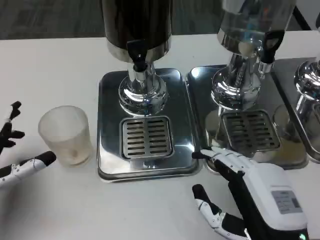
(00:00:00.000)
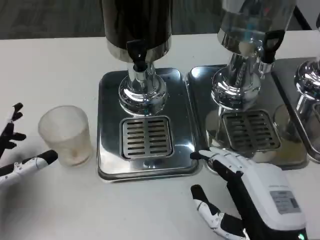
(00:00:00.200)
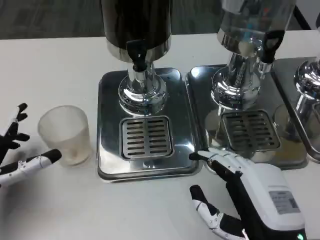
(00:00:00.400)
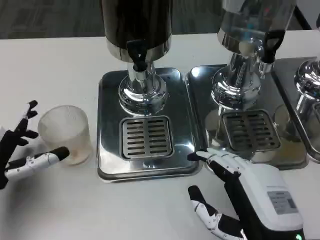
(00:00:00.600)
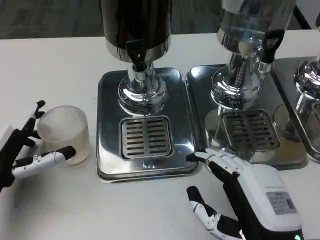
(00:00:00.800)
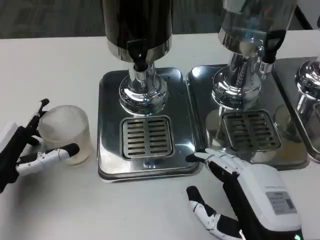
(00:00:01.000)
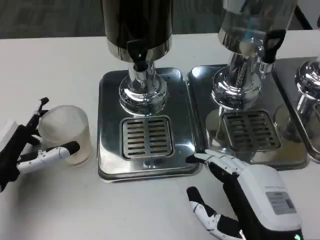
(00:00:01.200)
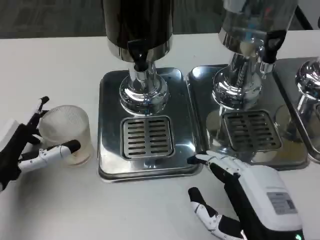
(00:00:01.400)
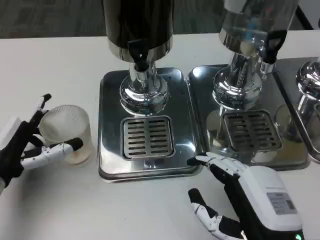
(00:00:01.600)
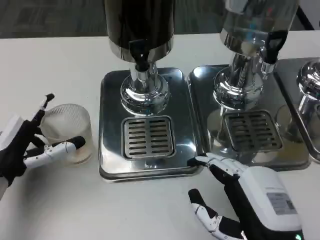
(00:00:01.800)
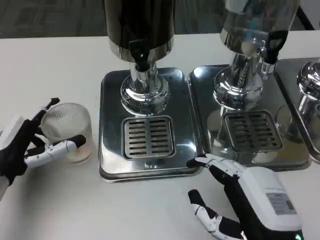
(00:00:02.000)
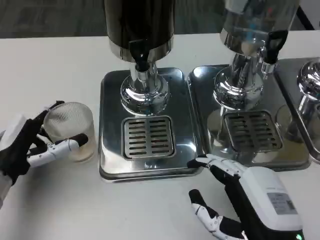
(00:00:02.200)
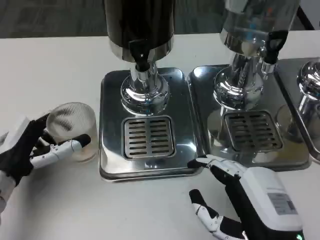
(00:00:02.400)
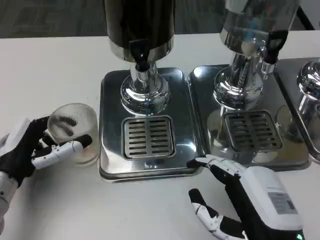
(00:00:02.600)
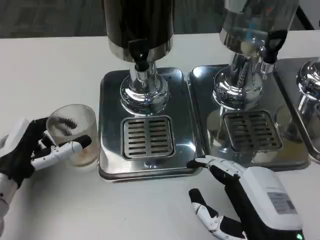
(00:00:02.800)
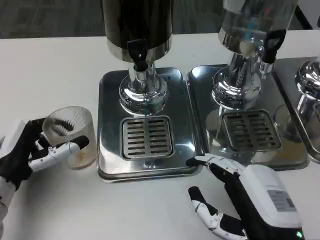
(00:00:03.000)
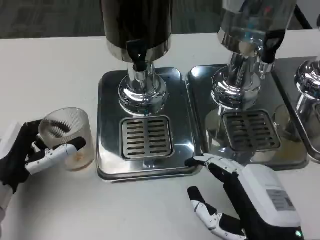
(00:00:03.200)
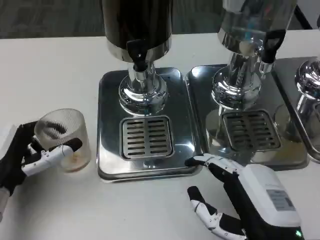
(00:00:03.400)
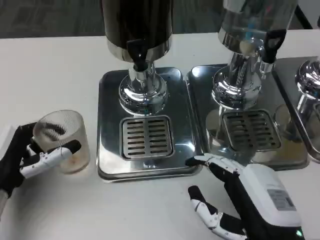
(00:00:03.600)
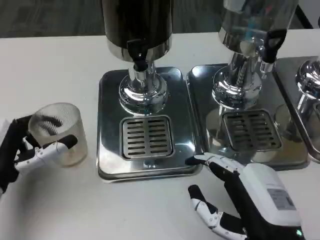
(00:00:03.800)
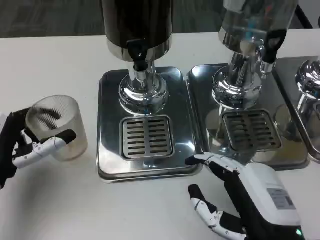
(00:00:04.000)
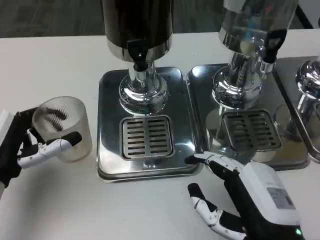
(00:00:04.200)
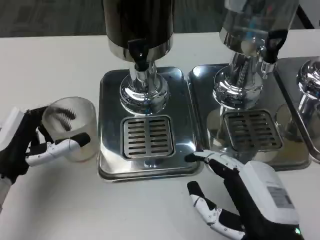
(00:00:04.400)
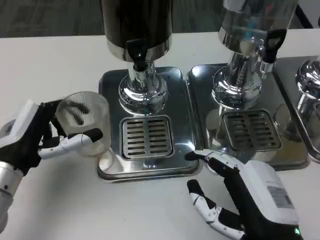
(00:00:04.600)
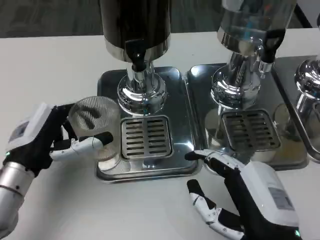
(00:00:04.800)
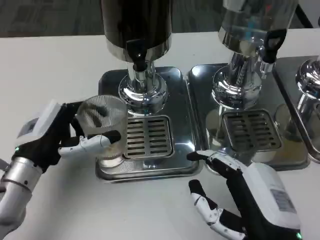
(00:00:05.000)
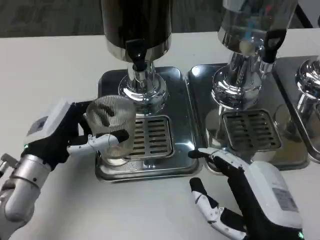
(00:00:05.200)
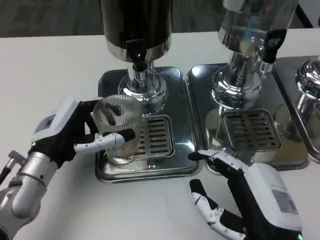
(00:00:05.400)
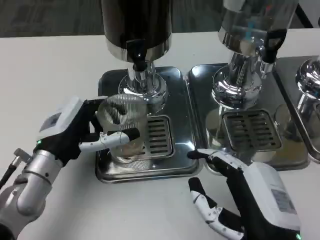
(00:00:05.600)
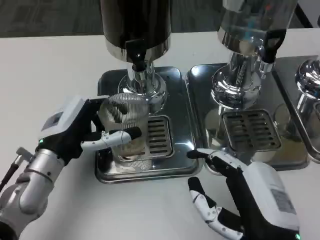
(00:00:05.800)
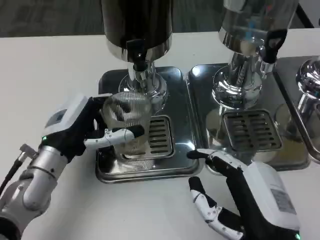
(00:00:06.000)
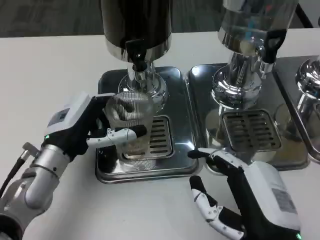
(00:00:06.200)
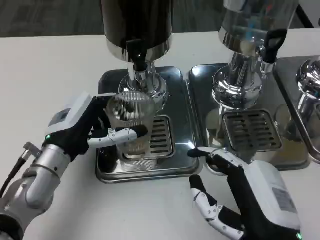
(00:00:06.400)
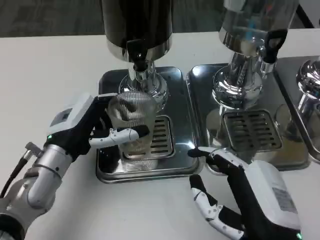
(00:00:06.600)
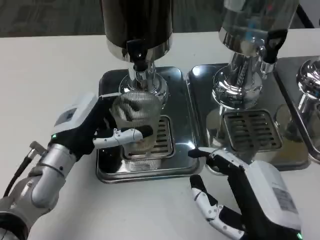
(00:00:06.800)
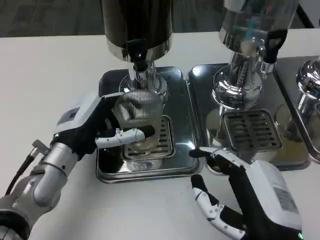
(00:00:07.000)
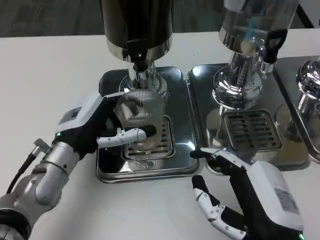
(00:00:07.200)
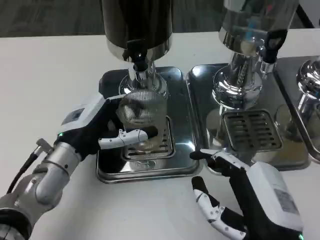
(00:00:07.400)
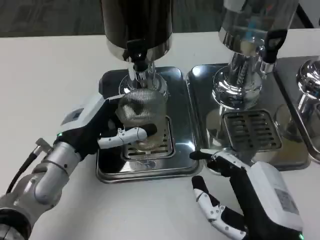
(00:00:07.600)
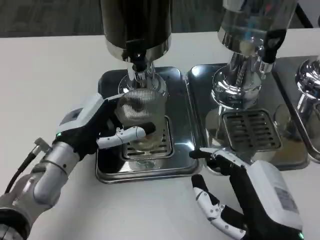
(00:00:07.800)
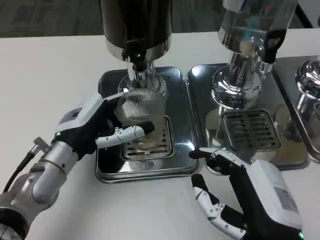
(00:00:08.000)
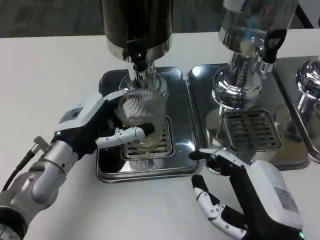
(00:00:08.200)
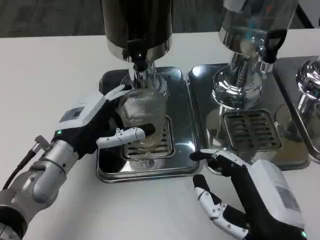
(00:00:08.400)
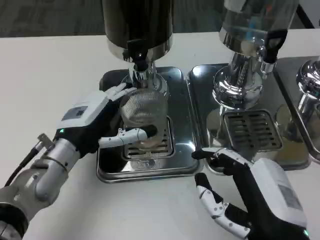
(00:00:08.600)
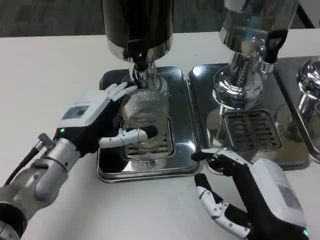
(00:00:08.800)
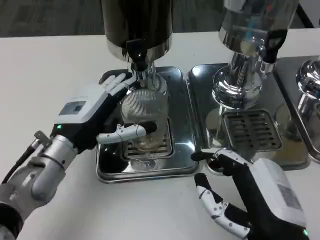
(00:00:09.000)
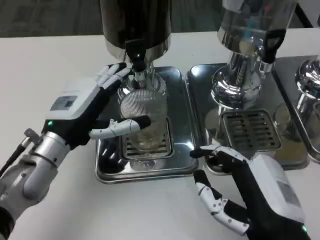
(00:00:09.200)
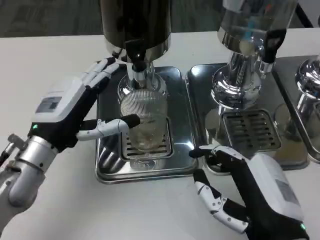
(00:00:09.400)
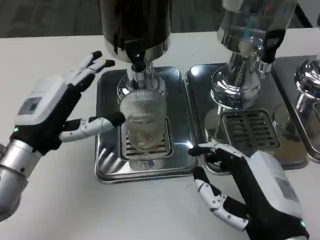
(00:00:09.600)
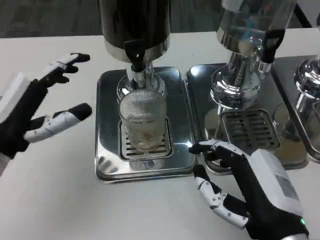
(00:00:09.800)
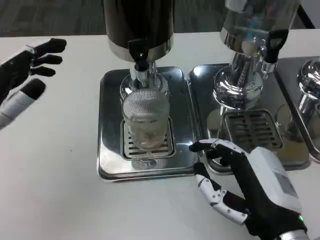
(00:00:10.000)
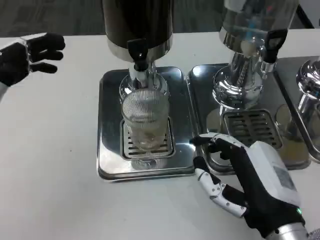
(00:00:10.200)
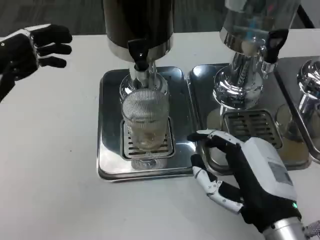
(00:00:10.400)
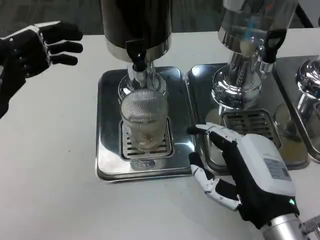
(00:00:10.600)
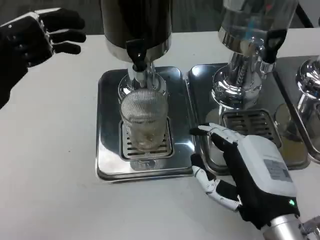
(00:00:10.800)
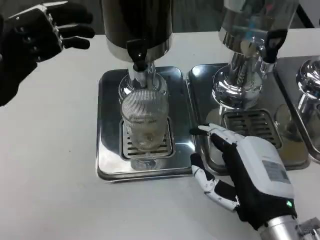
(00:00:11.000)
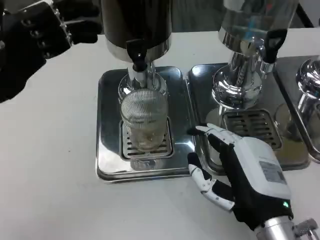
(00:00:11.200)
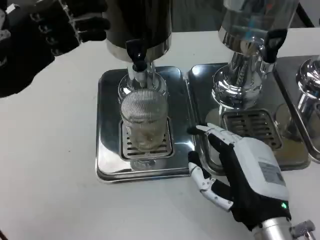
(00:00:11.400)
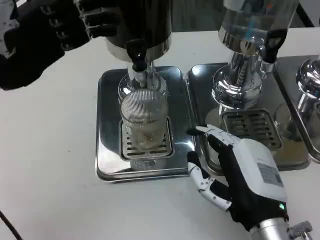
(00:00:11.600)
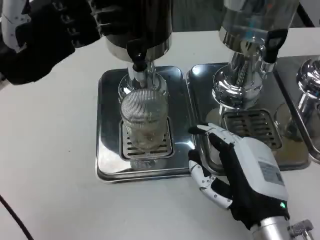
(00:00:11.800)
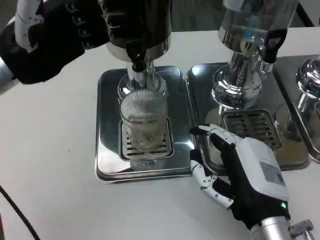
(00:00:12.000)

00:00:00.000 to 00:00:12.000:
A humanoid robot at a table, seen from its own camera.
Task of the whole recording: Grasp the cup under the faucet to collect the drink, then remove the cup.
00:00:00.000 to 00:00:01.600: The left hand shifts by some 5 cm.
00:00:01.600 to 00:00:04.400: The hands move only a little.
00:00:04.400 to 00:00:06.000: The left hand travels to the right by about 5 cm.
00:00:06.000 to 00:00:09.000: The hands move only a little.
00:00:09.000 to 00:00:10.400: The left hand is displaced to the left and upward by approximately 15 cm.
00:00:10.400 to 00:00:12.000: The left hand shifts roughly 10 cm forward.

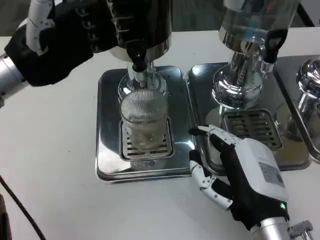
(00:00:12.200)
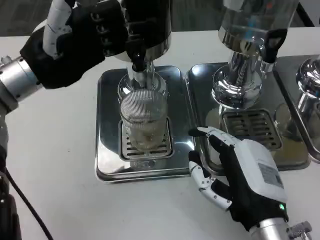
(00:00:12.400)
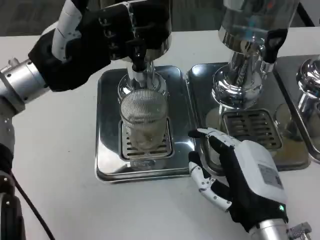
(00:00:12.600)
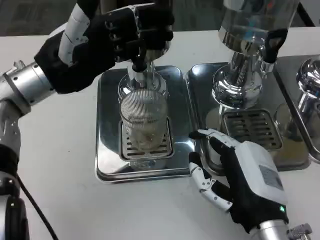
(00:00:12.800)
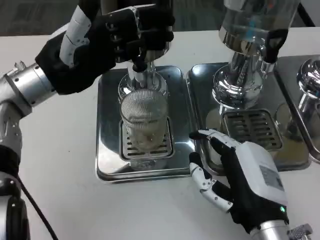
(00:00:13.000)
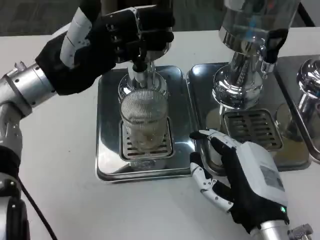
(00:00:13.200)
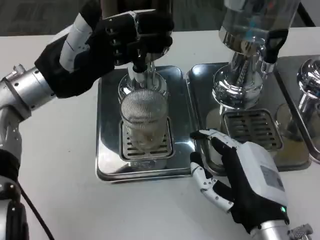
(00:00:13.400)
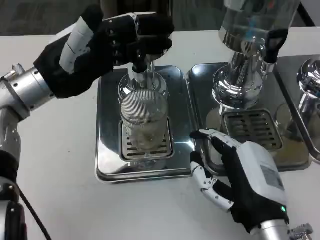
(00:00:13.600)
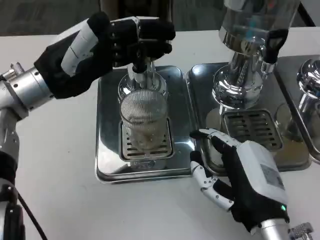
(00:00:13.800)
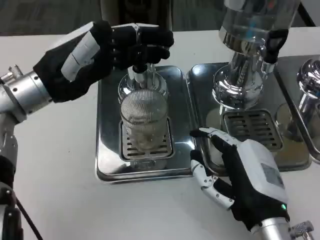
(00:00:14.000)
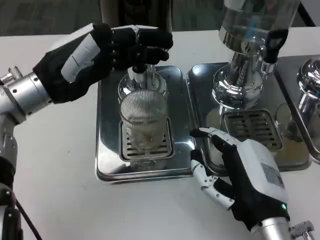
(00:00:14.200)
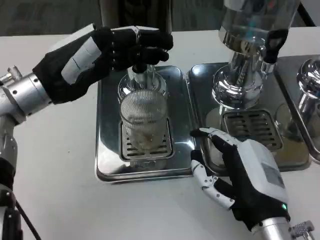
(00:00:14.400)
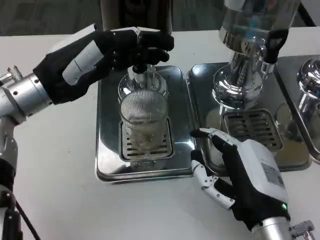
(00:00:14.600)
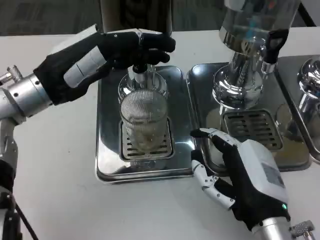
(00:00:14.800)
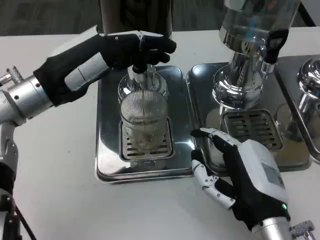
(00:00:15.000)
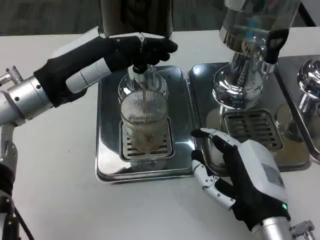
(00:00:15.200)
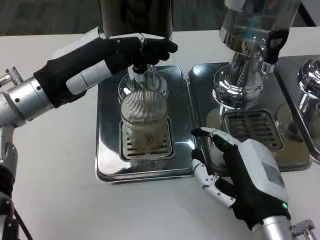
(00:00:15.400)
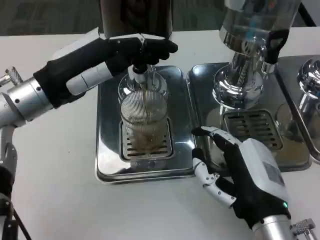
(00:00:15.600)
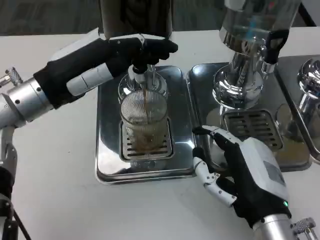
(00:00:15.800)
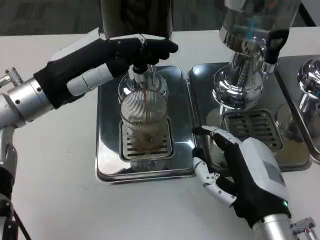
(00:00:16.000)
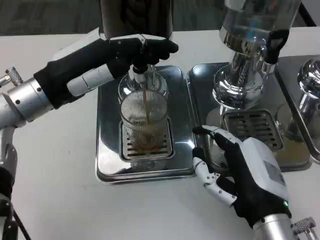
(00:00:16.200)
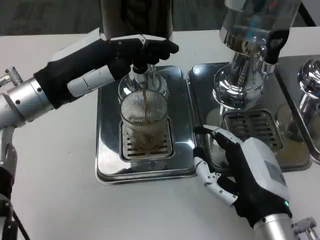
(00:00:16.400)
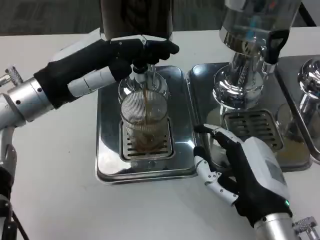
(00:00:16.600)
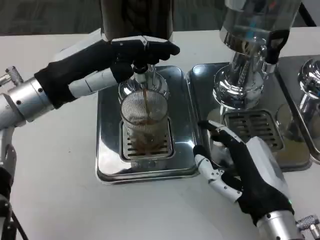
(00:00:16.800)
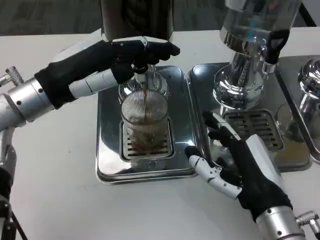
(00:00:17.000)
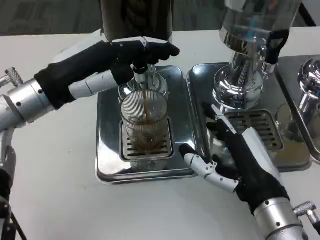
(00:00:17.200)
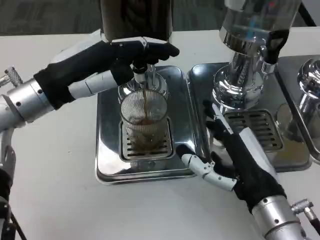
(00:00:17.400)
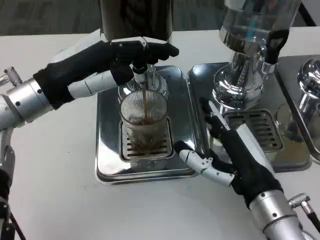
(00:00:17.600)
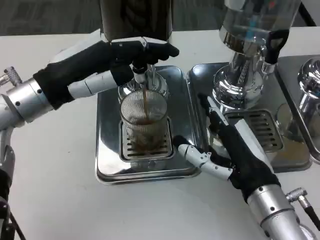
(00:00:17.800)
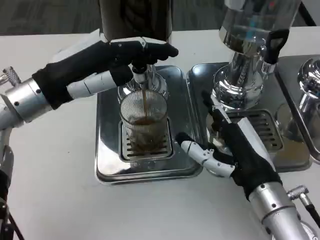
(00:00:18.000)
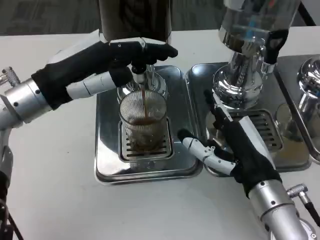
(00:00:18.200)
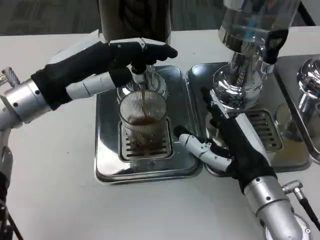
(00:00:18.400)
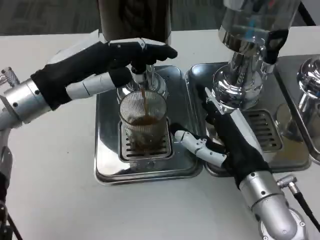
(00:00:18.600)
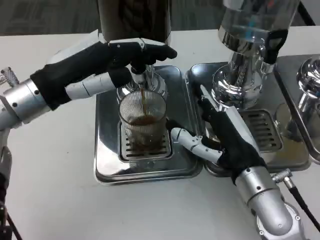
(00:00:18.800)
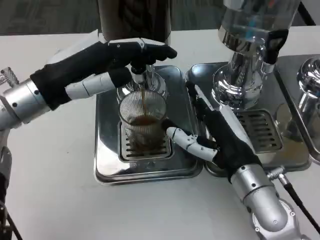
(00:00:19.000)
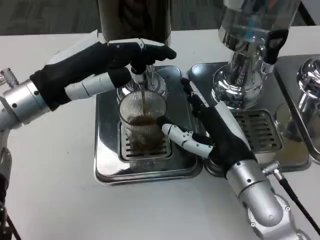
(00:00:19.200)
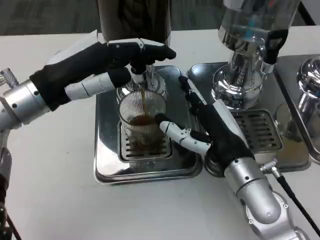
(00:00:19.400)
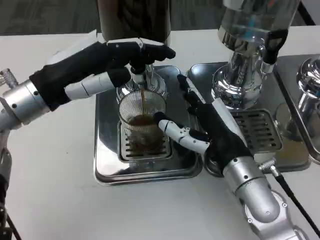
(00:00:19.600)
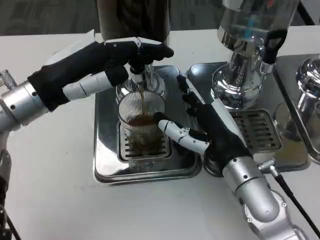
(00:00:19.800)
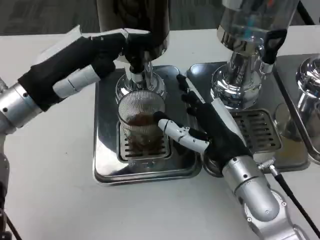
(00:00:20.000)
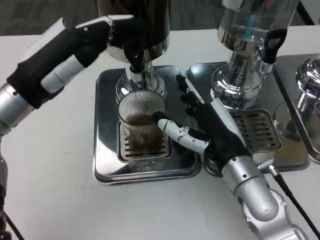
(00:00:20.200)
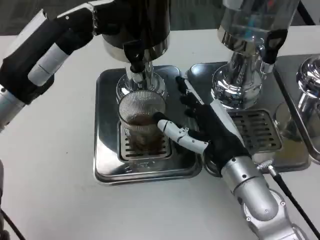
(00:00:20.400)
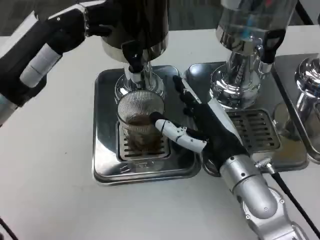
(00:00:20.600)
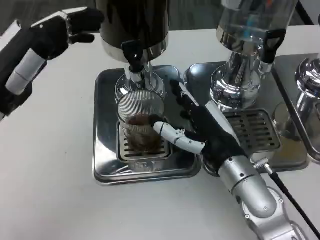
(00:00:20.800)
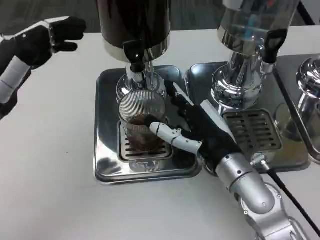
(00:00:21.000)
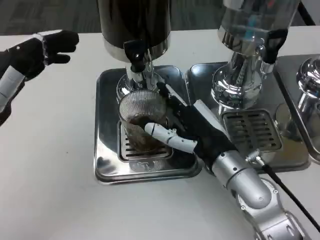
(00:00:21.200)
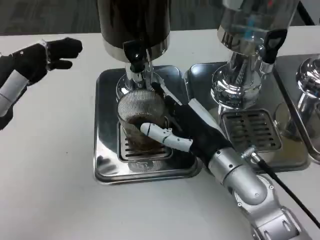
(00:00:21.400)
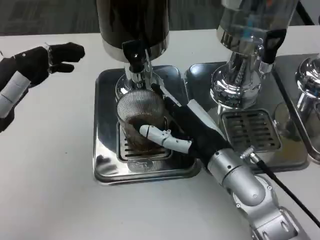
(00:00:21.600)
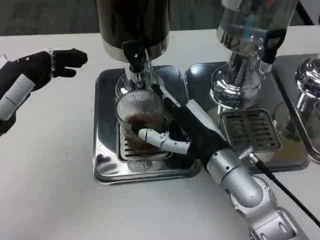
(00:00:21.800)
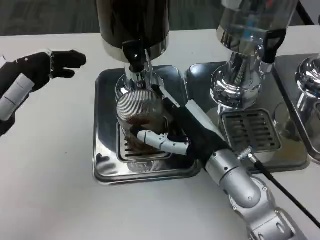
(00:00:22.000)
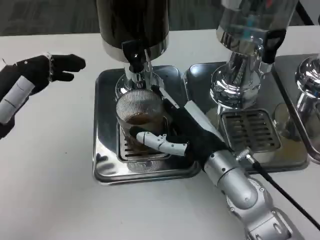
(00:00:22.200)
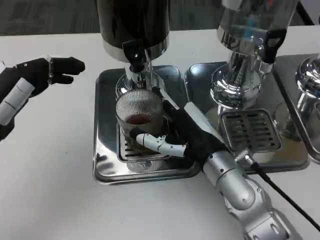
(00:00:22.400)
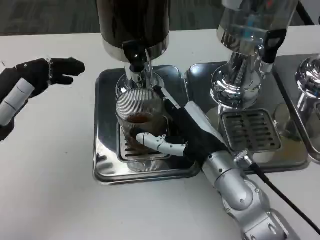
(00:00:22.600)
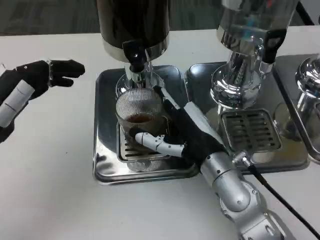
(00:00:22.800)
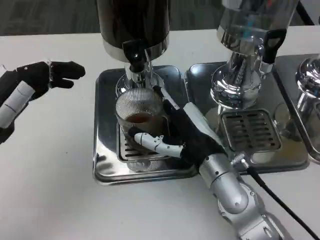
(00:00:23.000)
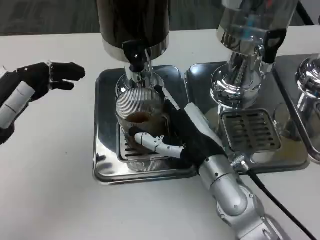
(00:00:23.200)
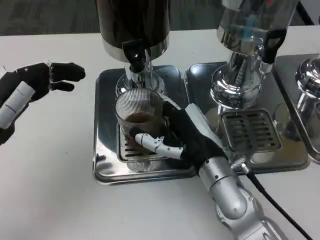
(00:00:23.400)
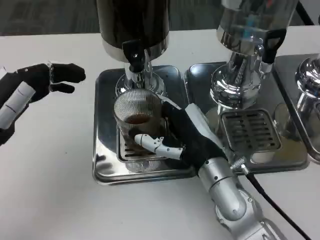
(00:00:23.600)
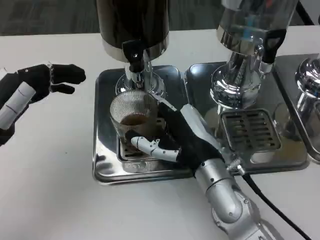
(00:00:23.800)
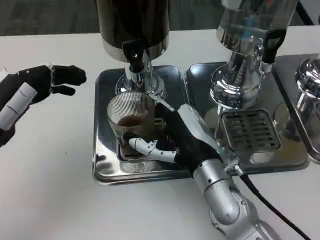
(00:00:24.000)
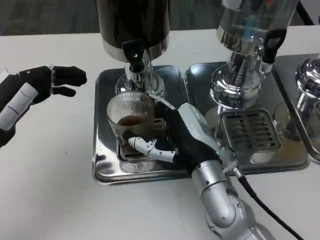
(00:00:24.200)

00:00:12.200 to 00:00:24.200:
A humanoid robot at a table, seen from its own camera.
Task of the whole recording: Grasp the cup under the faucet to collect the drink, then remove the cup.
00:00:12.200 to 00:00:13.800: The hands move only a little.
00:00:13.800 to 00:00:15.200: The hands stay close to where they were, moving slightly.
00:00:15.200 to 00:00:16.600: The hands make only small movements.
00:00:19.800 to 00:00:21.200: The left hand shifts about 10 cm to the left and backward.
00:00:22.600 to 00:00:24.200: The hands stay close to where they were, moving slightly.
